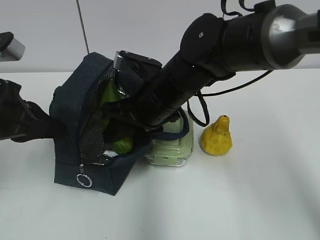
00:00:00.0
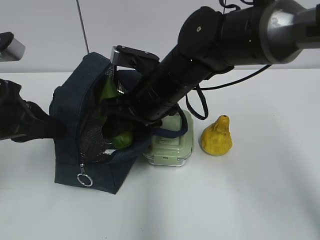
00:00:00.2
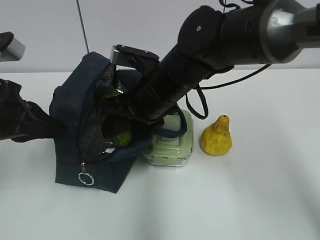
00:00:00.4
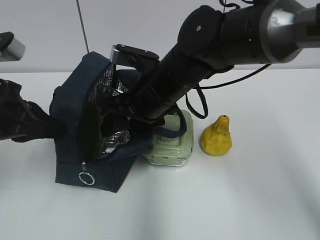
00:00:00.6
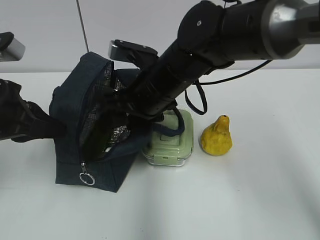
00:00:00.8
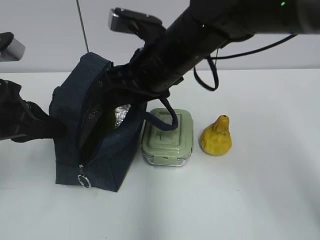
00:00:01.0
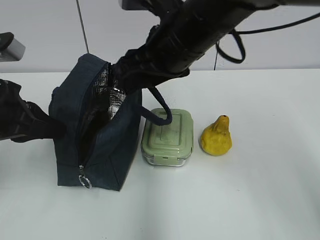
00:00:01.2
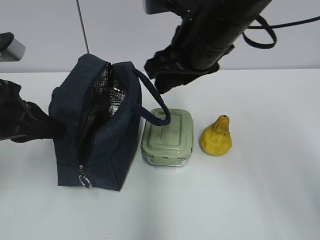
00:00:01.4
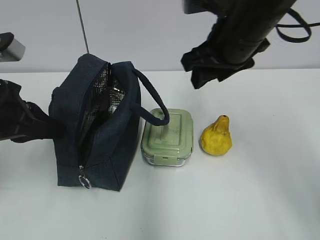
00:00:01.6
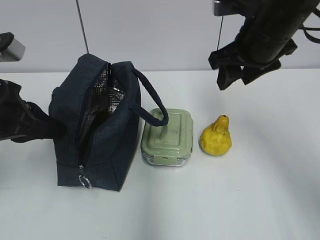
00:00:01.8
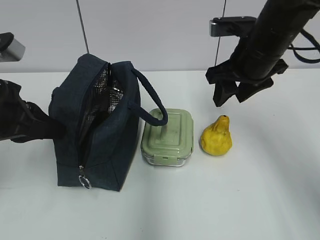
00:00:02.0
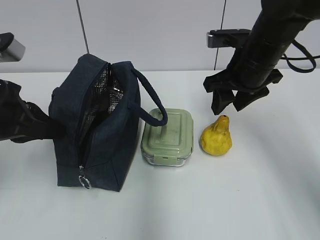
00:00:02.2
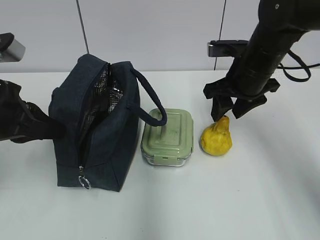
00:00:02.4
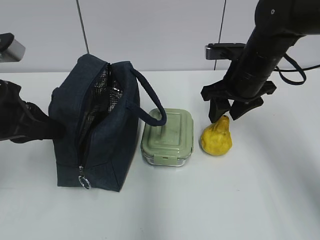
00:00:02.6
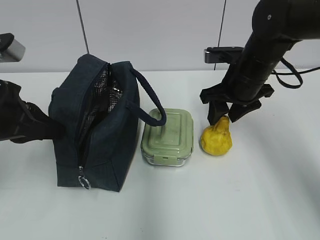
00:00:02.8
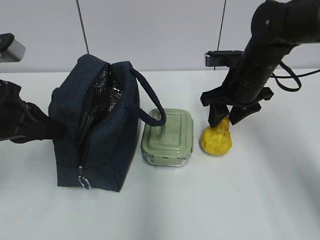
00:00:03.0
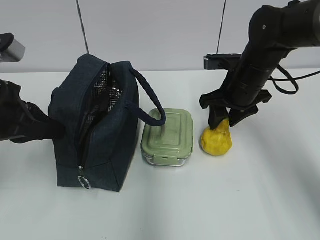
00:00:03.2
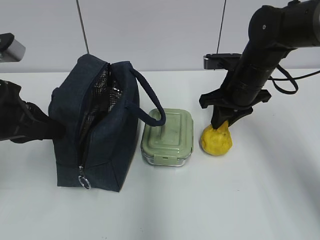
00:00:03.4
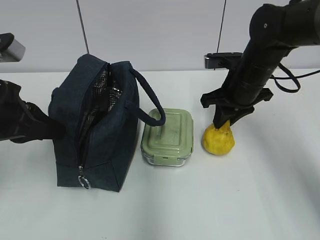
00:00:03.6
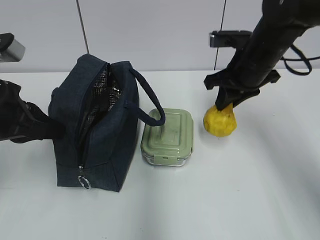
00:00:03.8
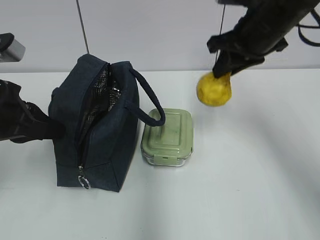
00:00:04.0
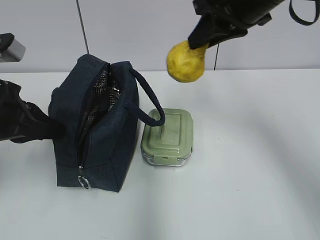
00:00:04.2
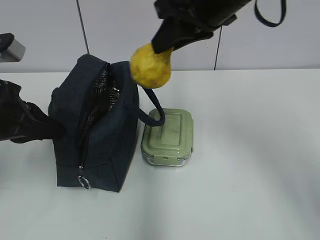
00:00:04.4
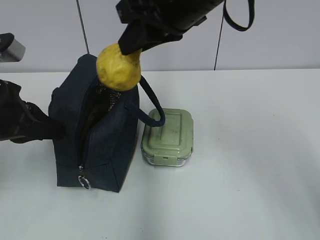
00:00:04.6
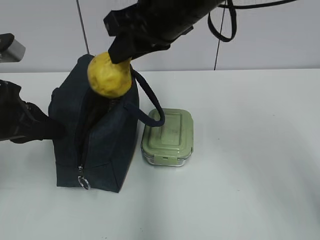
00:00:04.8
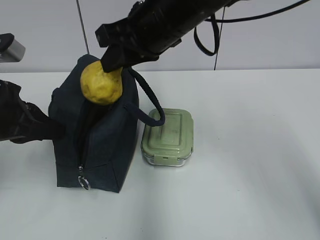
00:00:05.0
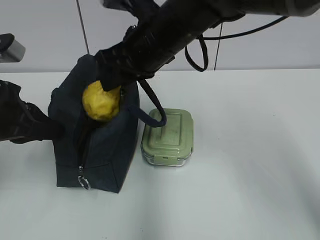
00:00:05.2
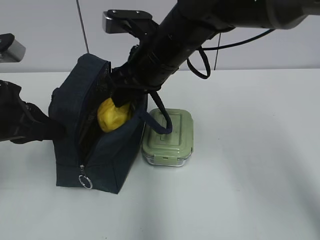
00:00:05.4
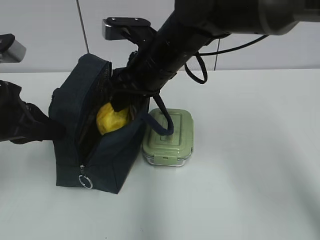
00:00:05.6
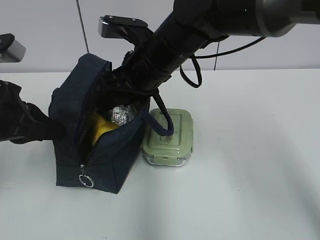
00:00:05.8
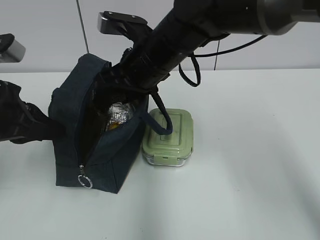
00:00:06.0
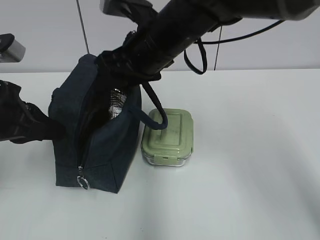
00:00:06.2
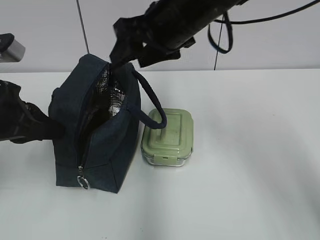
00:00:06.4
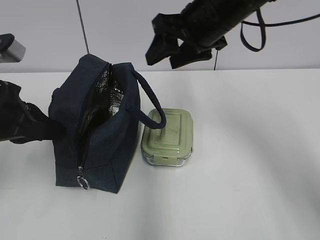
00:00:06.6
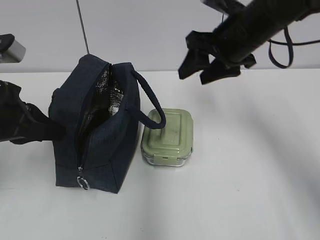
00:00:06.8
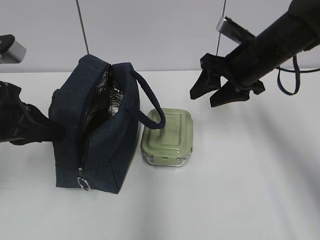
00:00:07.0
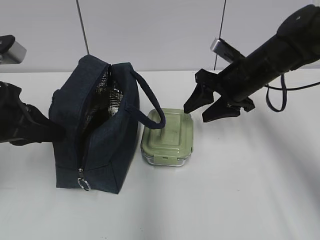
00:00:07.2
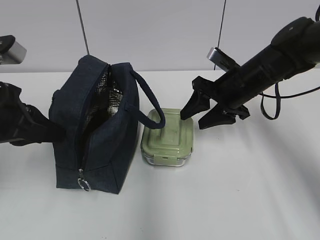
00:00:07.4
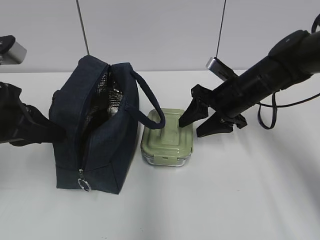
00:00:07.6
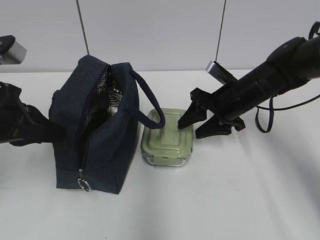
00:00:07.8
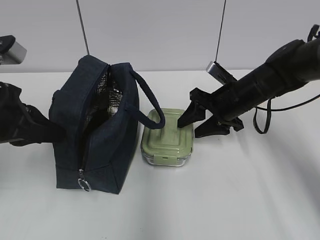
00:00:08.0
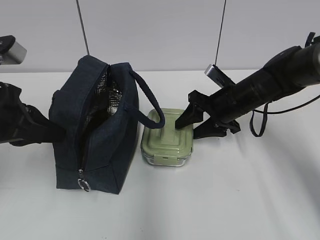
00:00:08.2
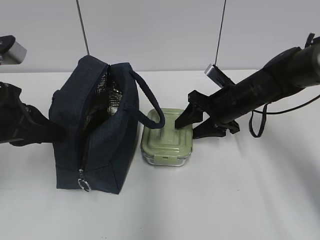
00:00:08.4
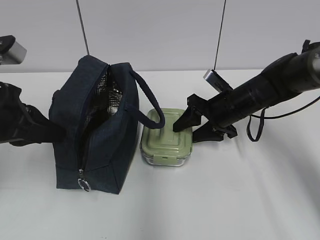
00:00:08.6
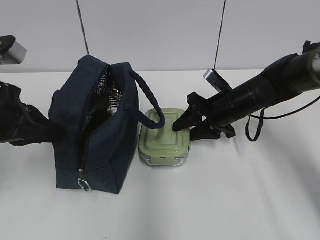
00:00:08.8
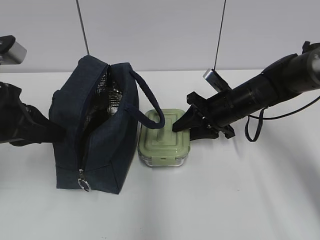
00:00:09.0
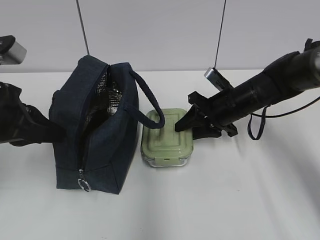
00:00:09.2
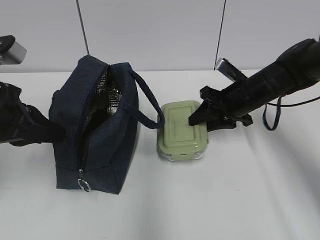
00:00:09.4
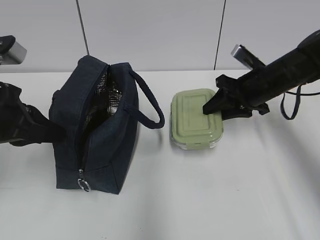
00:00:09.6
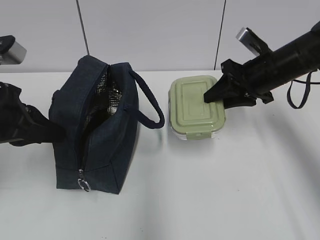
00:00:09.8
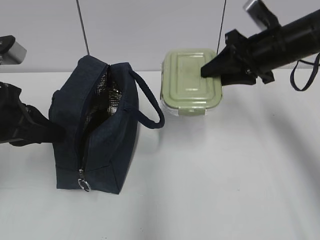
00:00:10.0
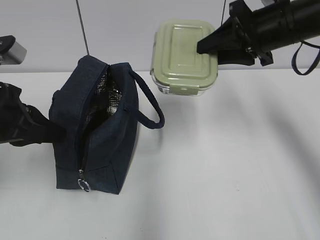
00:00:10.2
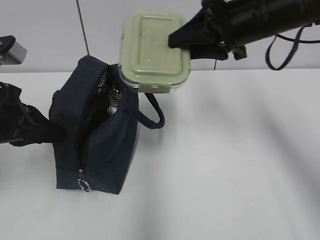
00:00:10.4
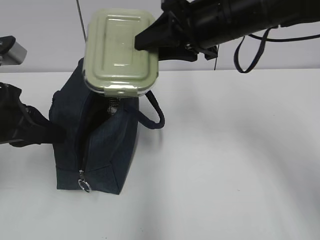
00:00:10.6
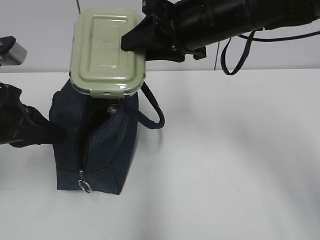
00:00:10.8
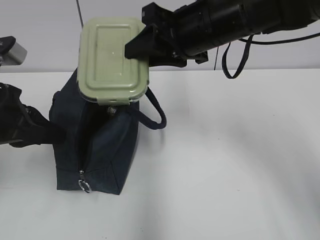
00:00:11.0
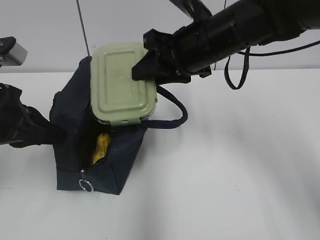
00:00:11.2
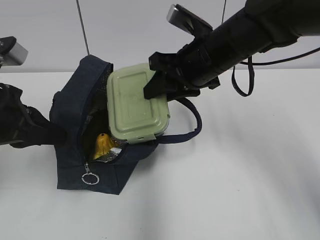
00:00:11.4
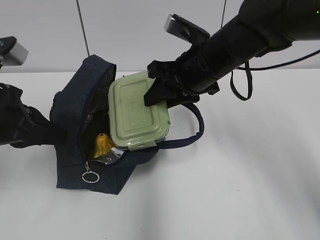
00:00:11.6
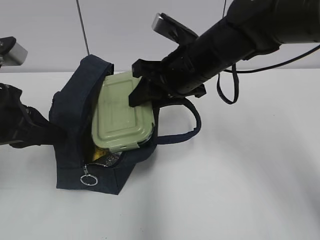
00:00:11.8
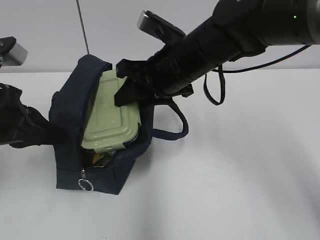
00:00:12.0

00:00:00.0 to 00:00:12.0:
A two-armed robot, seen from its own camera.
00:00:00.0 to 00:00:01.6: The right gripper heads to the right and upward, covering approximately 15 cm.
00:00:01.6 to 00:00:03.0: The right gripper goes roughly 10 cm downward and forward.
00:00:03.0 to 00:00:04.4: The right gripper heads upward and to the left, covering approximately 20 cm, and closes its fingers.
00:00:04.4 to 00:00:06.0: The right gripper moves downward and to the left, about 15 cm, and opens its fingers.
00:00:06.0 to 00:00:07.6: The right gripper goes about 20 cm to the right and downward.
00:00:07.6 to 00:00:09.0: There are only small adjustments of the grippers.
00:00:09.0 to 00:00:10.4: The right gripper goes approximately 20 cm upward.
00:00:10.4 to 00:00:12.0: The right gripper shifts some 10 cm to the left and downward.

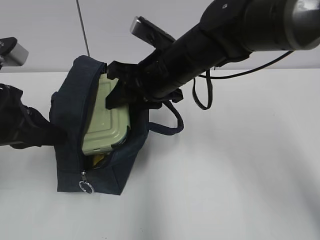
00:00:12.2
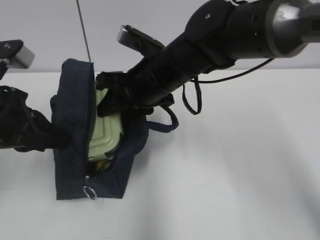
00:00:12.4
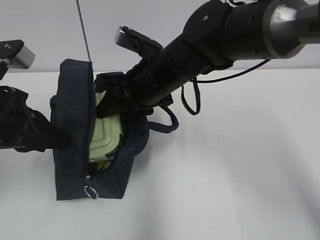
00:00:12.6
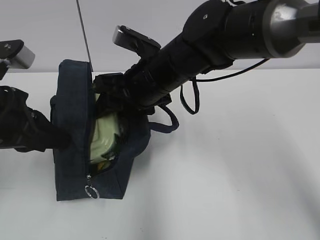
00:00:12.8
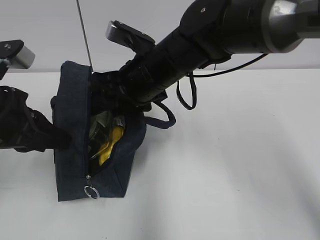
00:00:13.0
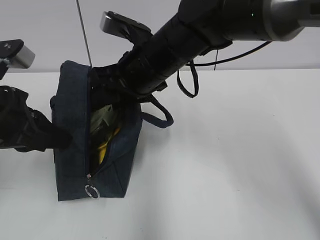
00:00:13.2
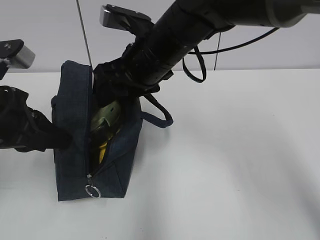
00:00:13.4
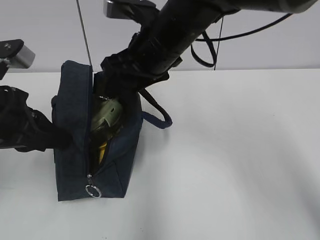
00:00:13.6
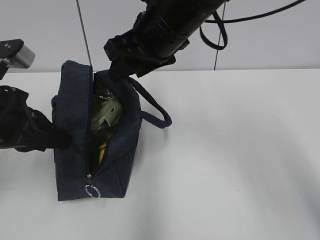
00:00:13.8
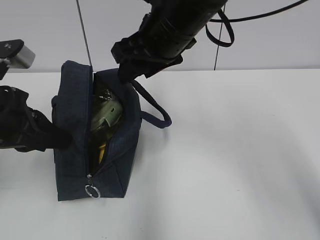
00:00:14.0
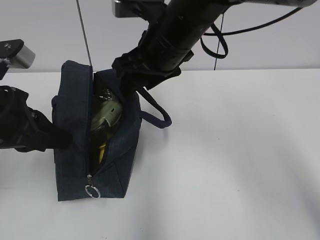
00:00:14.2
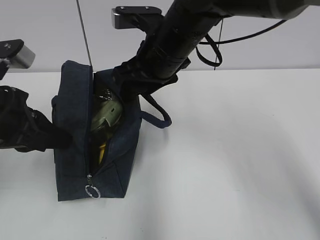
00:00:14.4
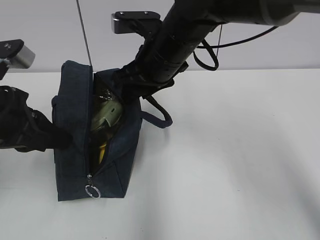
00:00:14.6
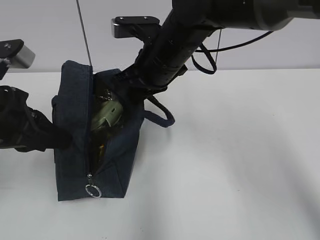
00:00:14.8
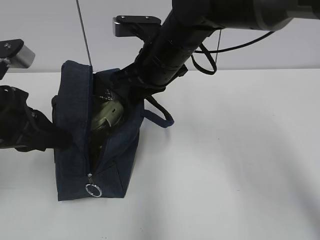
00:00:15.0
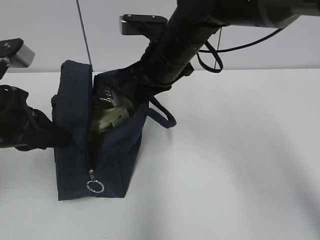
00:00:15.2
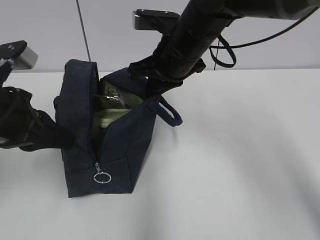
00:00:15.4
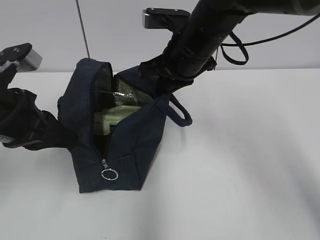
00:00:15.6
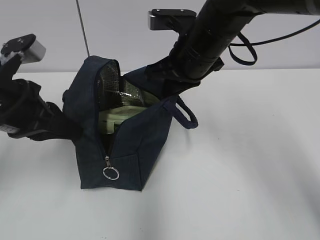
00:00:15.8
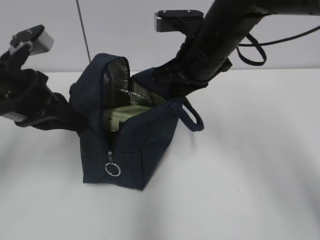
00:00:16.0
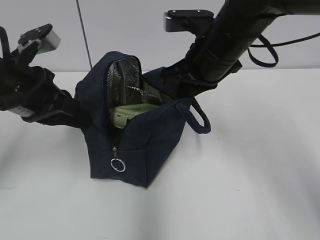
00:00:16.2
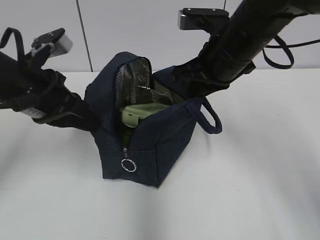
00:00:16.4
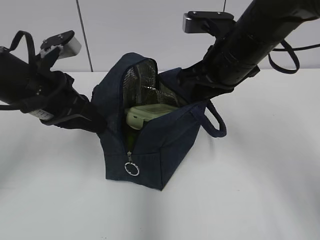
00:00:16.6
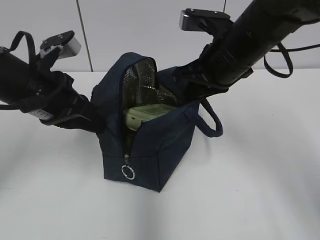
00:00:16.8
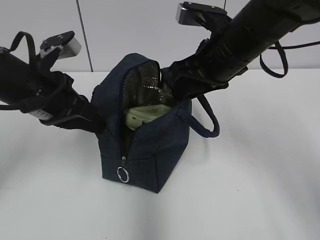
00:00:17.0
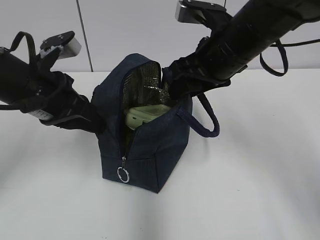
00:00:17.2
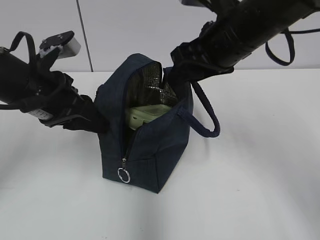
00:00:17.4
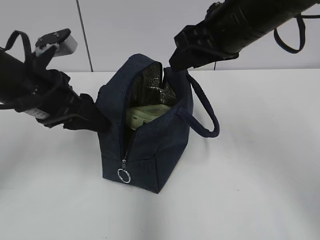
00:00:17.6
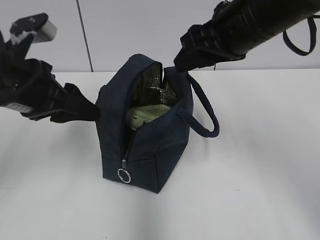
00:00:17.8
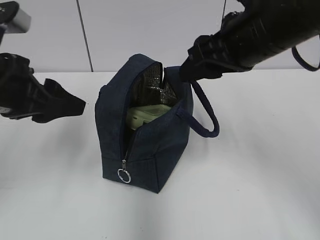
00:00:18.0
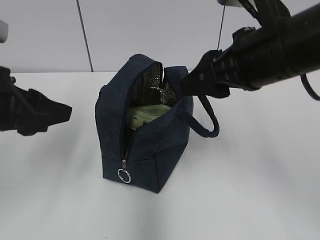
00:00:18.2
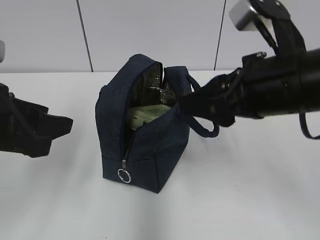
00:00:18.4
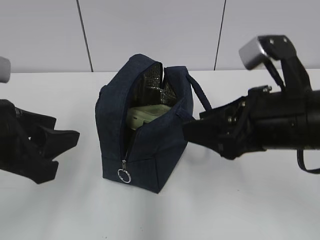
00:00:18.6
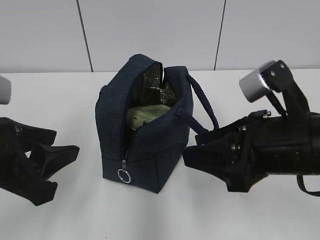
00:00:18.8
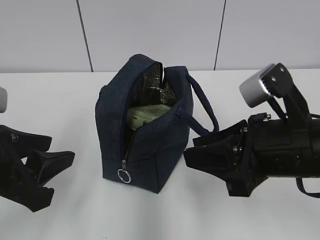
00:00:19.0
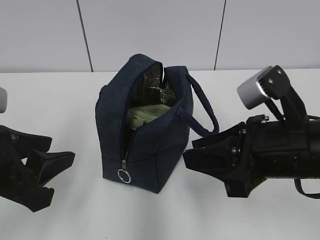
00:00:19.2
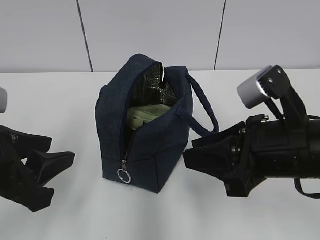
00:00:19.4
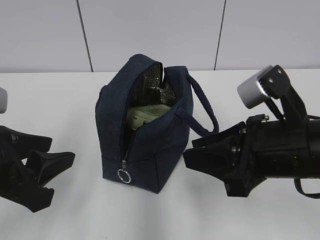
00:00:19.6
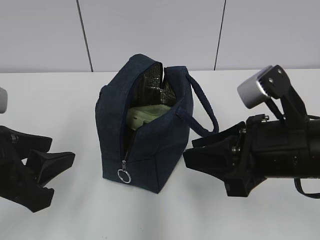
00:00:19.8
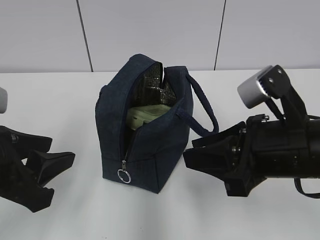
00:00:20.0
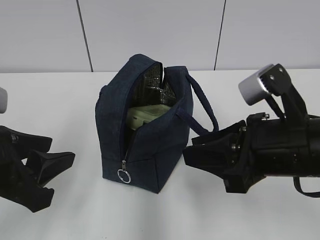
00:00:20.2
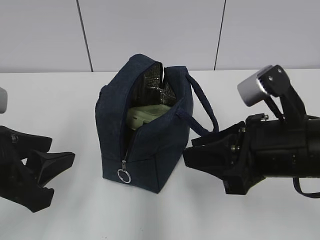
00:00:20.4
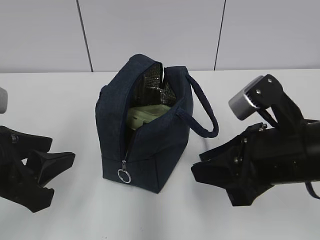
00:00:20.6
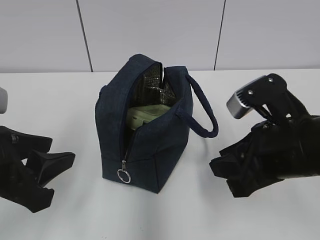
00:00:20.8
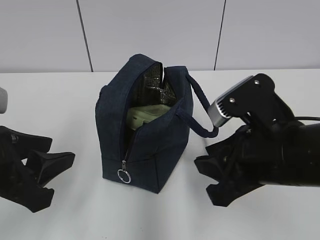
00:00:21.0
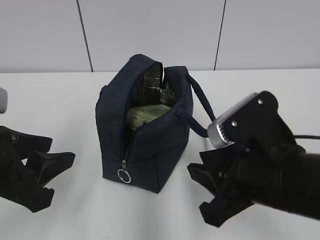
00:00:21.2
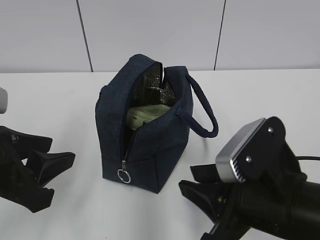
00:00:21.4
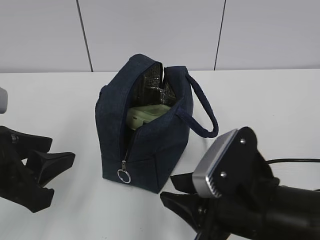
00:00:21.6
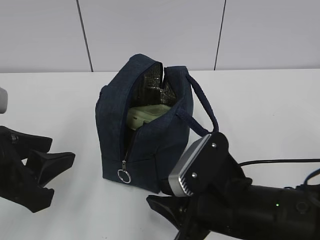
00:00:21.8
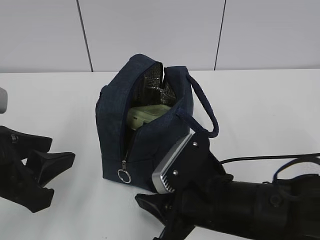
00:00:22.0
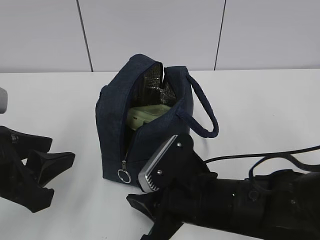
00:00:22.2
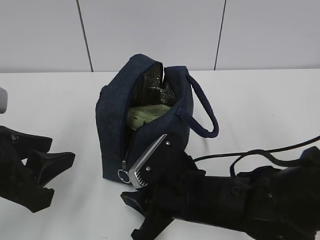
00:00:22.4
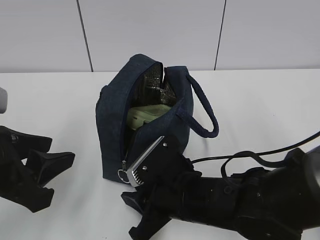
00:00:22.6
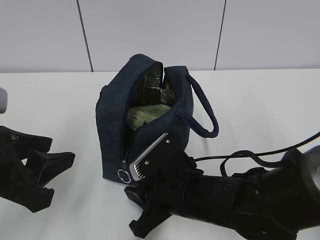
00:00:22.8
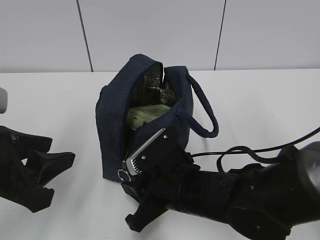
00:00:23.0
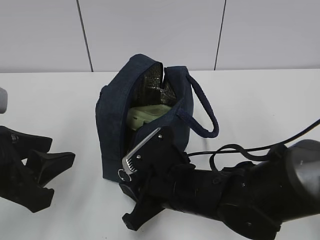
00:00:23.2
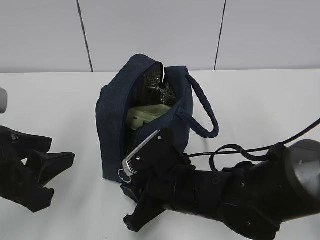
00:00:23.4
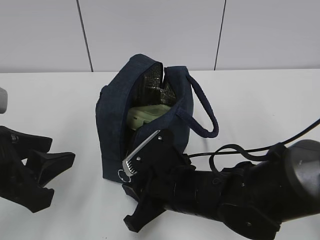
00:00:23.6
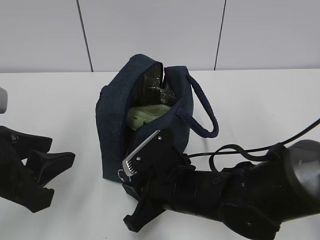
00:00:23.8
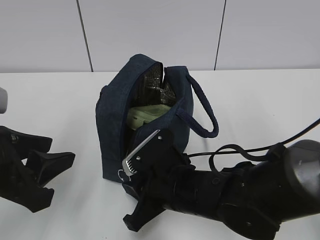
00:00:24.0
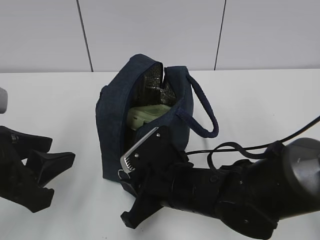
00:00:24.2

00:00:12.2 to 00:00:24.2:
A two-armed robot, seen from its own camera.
00:00:12.2 to 00:00:13.8: The right gripper goes approximately 5 cm upward.
00:00:13.8 to 00:00:15.2: The right gripper shifts roughly 5 cm downward, and closes up.
00:00:15.2 to 00:00:16.6: The right gripper is displaced to the right by about 10 cm. Meanwhile the left gripper is displaced forward by some 5 cm.
00:00:16.6 to 00:00:18.2: The two grippers go approximately 10 cm backward. The right gripper opens; the left gripper opens up.
00:00:18.2 to 00:00:19.8: The right gripper moves downward and backward, some 10 cm, while the left gripper shifts about 5 cm backward.
00:00:21.2 to 00:00:22.6: The right gripper shifts about 10 cm downward and to the left.
00:00:22.6 to 00:00:24.2: The grippers make only small movements.
